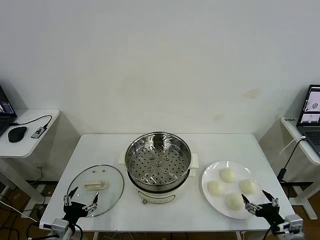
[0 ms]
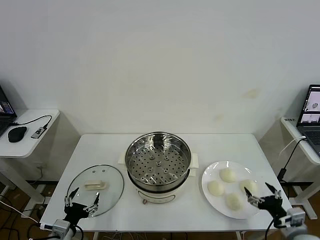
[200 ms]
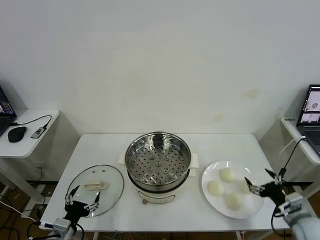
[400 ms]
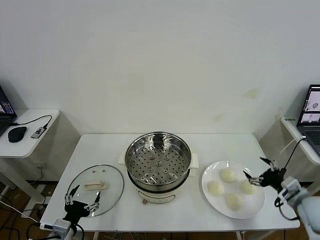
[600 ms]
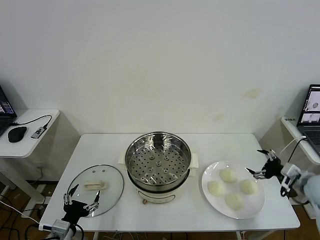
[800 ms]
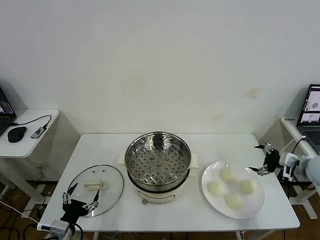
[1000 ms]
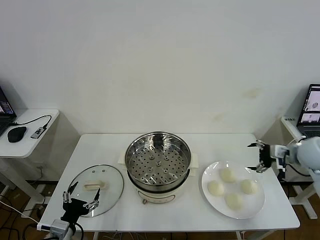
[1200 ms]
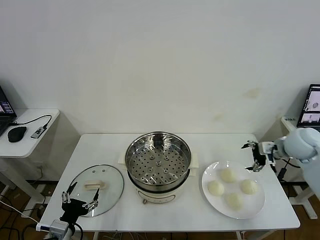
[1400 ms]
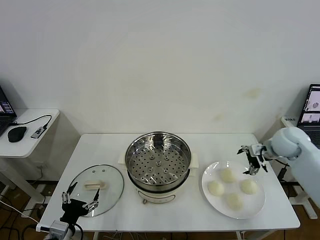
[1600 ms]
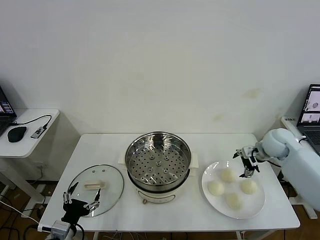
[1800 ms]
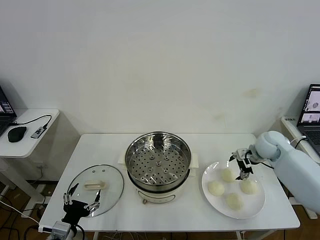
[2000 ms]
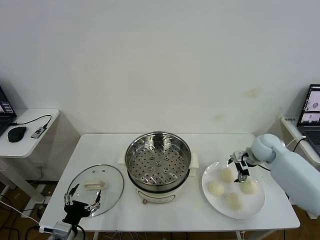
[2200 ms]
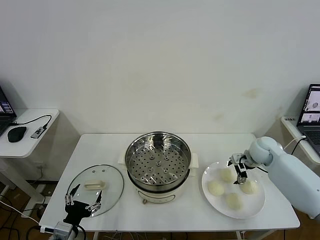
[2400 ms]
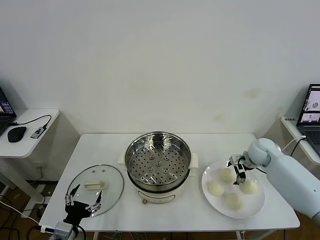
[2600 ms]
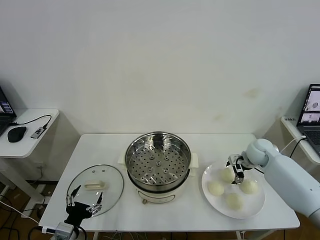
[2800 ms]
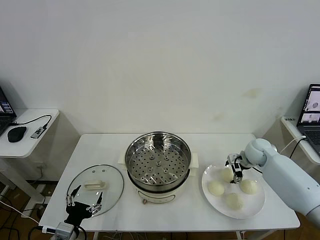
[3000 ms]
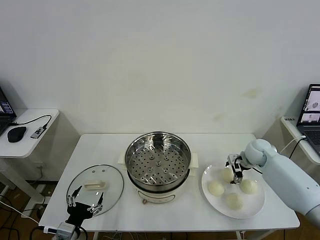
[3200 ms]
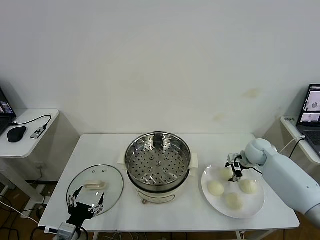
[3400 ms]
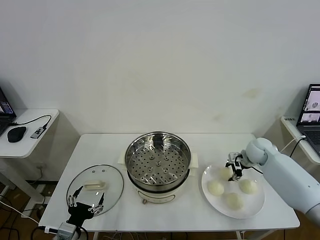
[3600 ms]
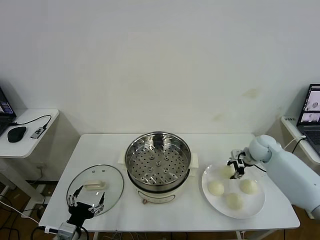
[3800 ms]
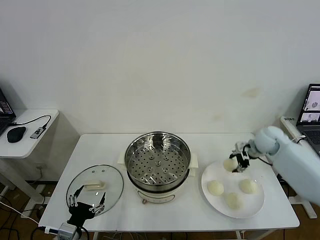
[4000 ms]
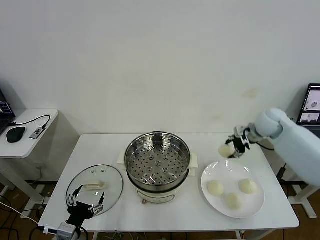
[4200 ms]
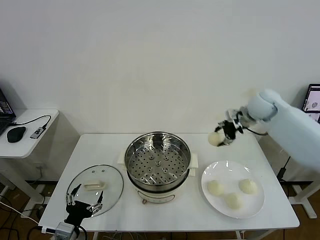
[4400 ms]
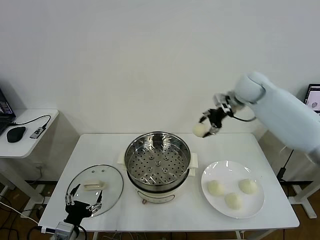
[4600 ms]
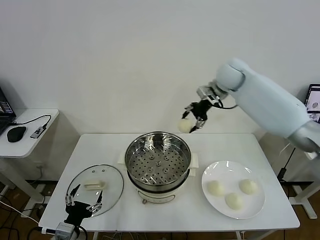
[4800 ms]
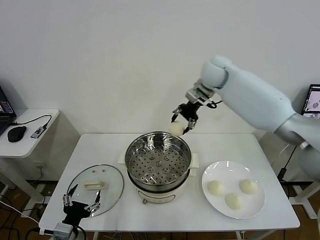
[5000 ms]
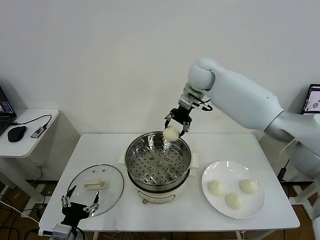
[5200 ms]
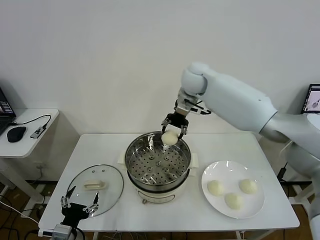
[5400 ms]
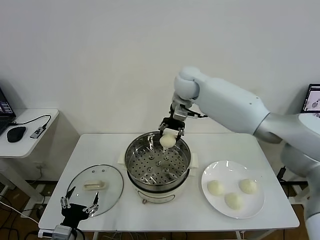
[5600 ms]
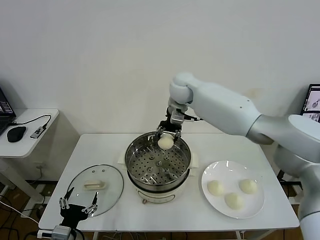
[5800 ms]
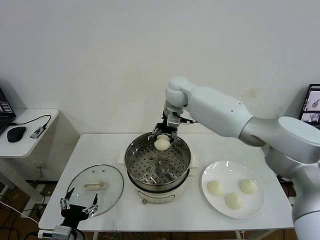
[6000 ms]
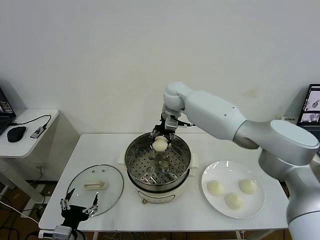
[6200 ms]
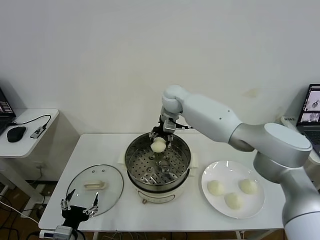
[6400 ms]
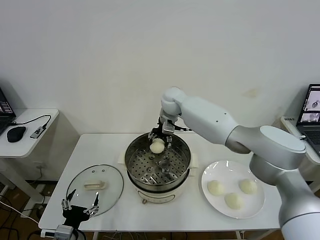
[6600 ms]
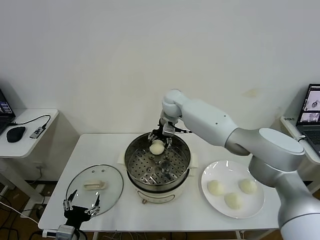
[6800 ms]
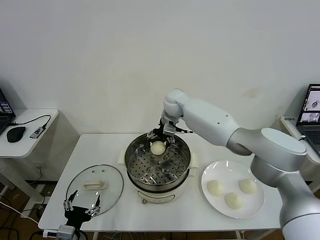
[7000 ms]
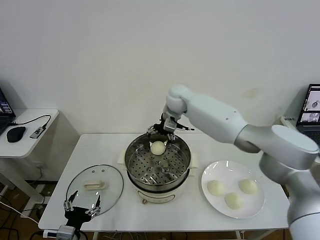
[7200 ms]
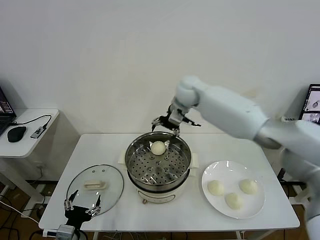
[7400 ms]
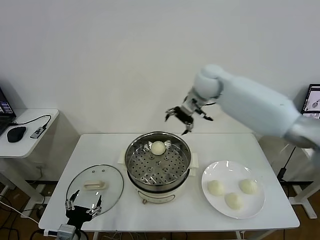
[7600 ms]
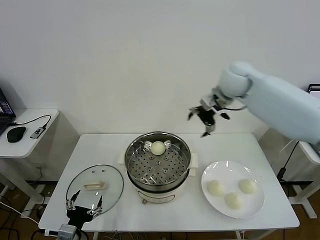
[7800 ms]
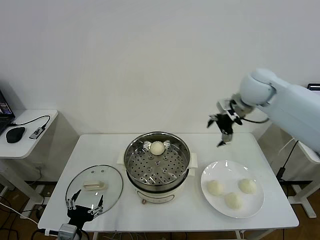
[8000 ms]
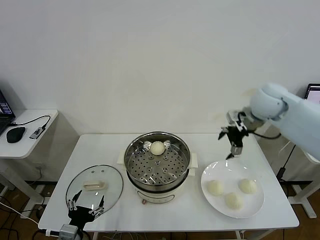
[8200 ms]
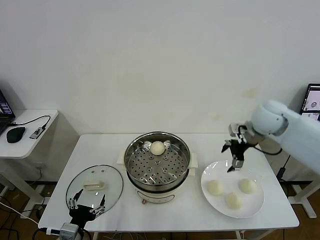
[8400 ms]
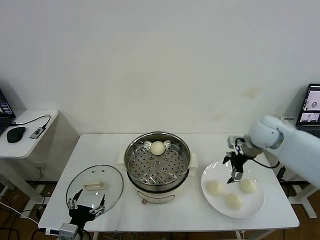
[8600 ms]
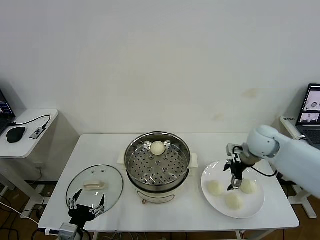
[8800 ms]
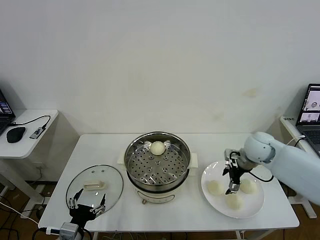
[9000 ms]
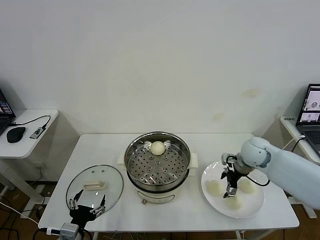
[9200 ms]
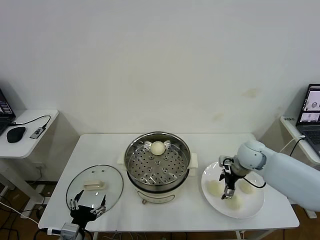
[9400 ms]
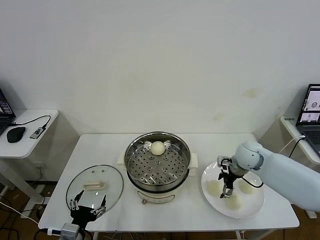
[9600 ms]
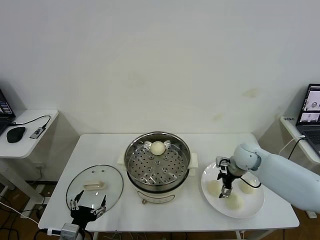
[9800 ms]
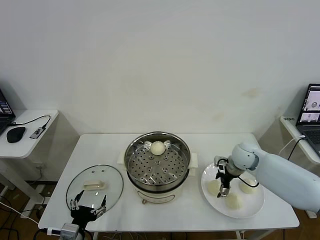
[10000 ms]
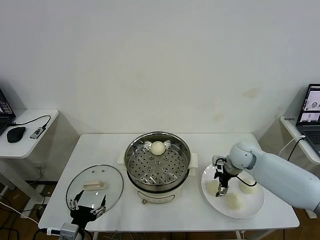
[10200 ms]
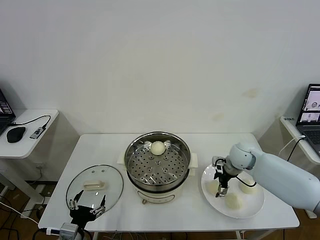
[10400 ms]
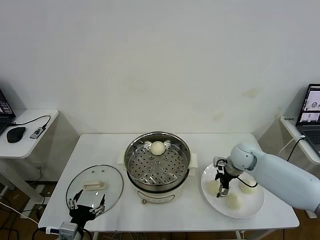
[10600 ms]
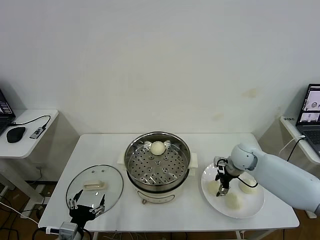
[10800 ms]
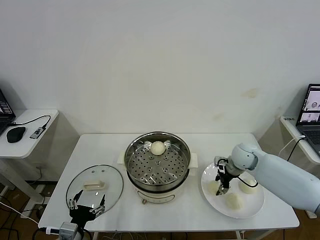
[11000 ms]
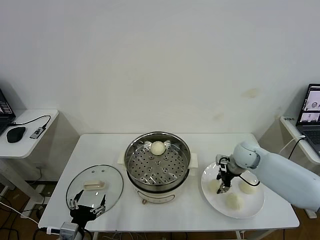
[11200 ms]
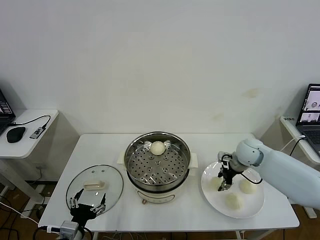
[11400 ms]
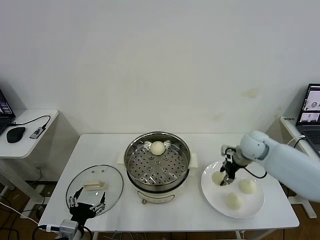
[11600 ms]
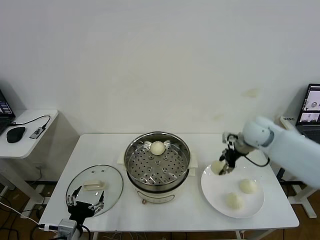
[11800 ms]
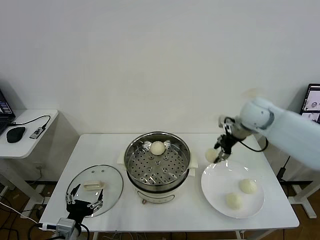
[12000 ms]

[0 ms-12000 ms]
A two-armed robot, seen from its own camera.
Task of the whole recording: take steamed baozi put them in steamer then cover it.
Step, 0 ms to 3600 ms: Grasp the baozi in the plate with right gripper.
Step, 3800 ms to 7000 ms: Place the baozi on the steamer with right gripper.
Step, 7200 ms to 11000 ms: Grasp the baozi in the plate with right gripper.
1600 ms to 3000 ms: The right gripper heads downward, covering about 10 cm.
3000 ms to 4400 ms: The right gripper moves upward, approximately 25 cm, and closes up.
4400 ms to 6000 ms: The right gripper is displaced to the left by approximately 25 cm.
6000 ms to 7600 ms: The right gripper heads to the right and upward, covering some 15 cm, and opens.
7600 ms to 9000 ms: The right gripper moves downward, to the right and backward, approximately 25 cm.
9000 ms to 10400 ms: The right gripper heads downward, covering approximately 5 cm.
10400 ms to 12000 ms: The right gripper moves upward, approximately 20 cm, and closes up.

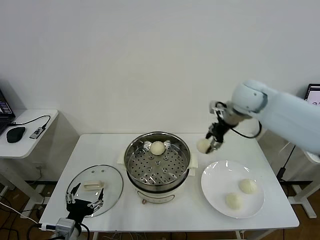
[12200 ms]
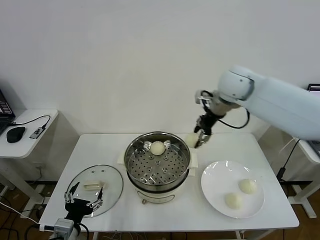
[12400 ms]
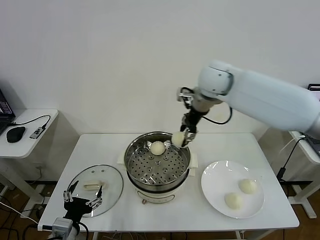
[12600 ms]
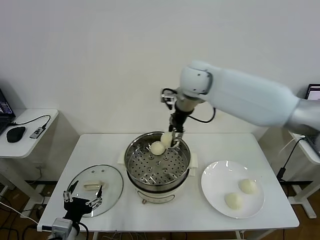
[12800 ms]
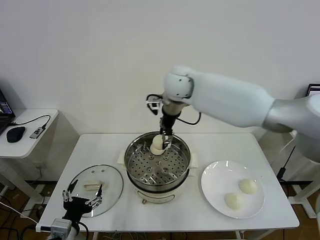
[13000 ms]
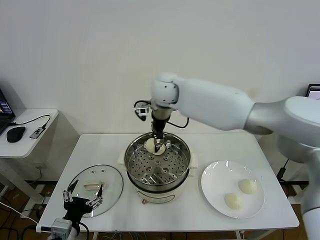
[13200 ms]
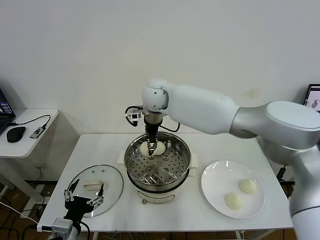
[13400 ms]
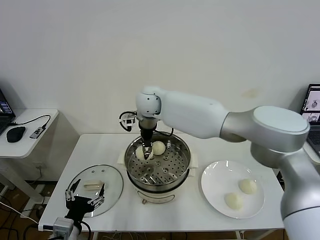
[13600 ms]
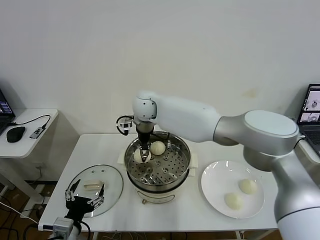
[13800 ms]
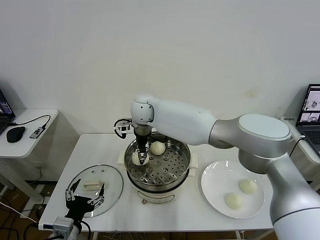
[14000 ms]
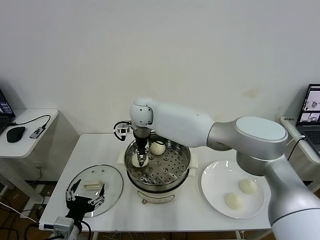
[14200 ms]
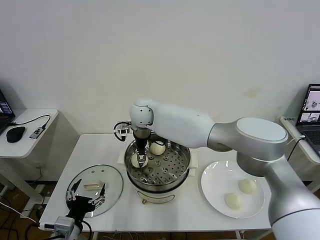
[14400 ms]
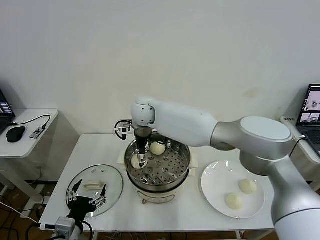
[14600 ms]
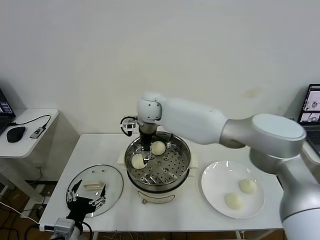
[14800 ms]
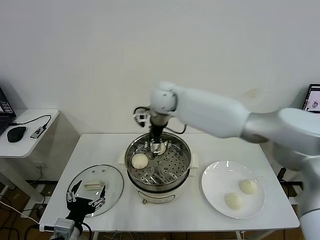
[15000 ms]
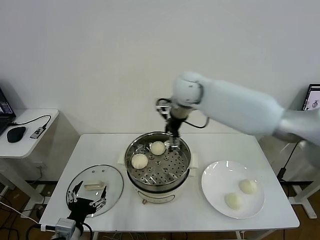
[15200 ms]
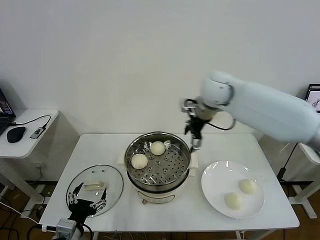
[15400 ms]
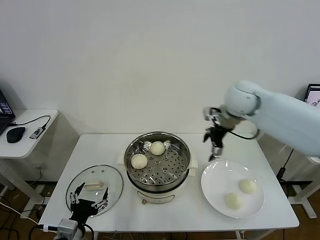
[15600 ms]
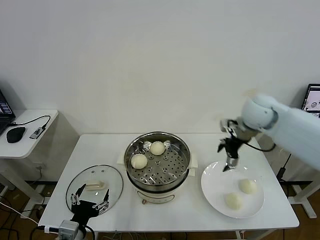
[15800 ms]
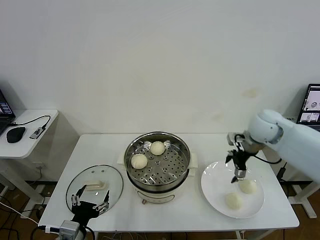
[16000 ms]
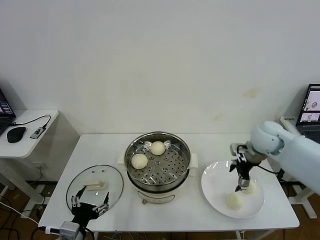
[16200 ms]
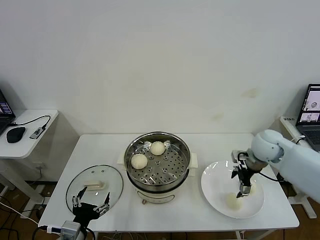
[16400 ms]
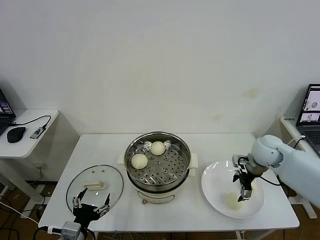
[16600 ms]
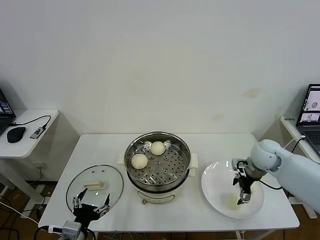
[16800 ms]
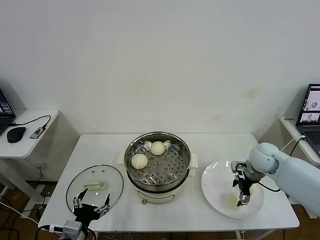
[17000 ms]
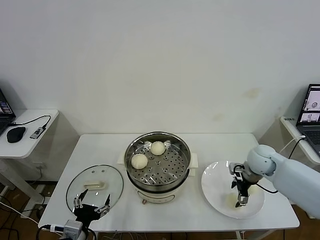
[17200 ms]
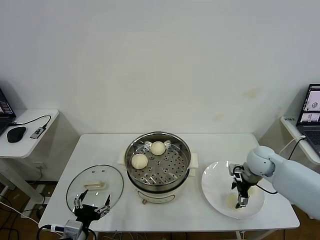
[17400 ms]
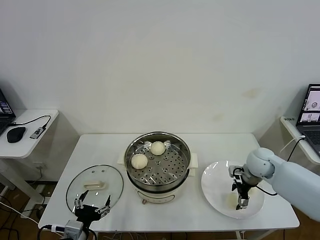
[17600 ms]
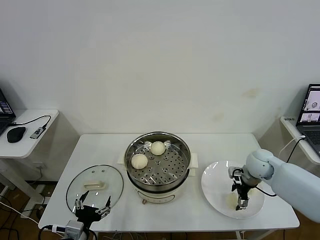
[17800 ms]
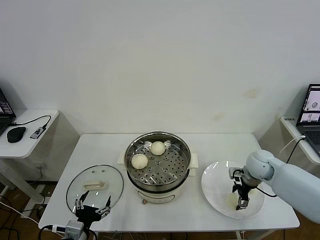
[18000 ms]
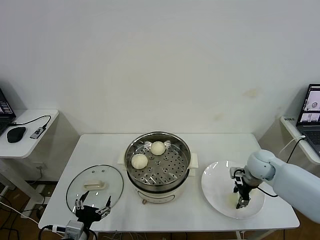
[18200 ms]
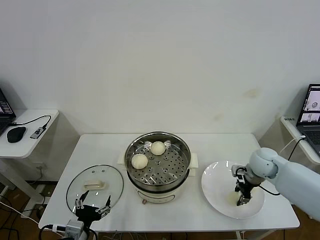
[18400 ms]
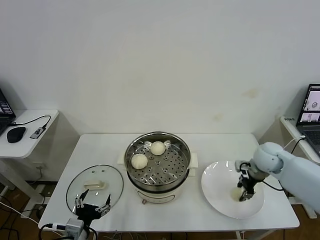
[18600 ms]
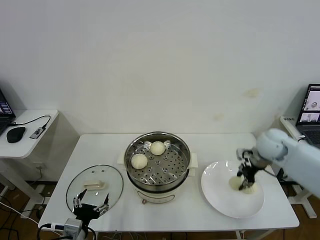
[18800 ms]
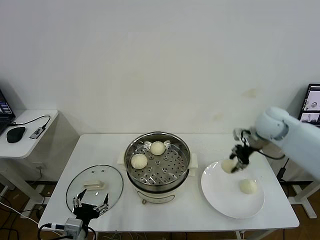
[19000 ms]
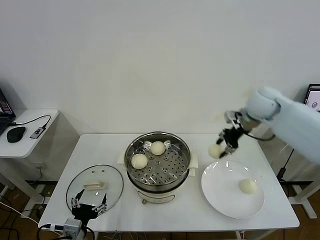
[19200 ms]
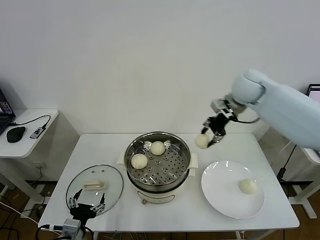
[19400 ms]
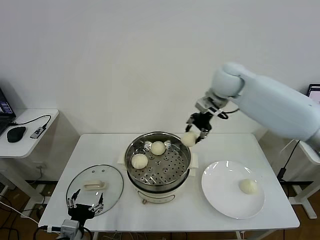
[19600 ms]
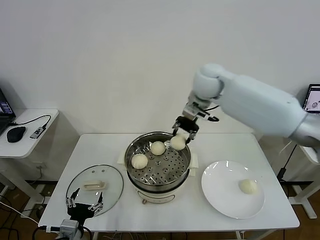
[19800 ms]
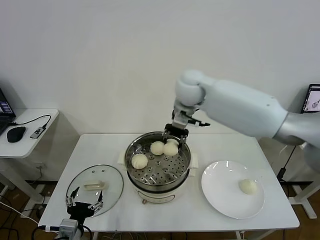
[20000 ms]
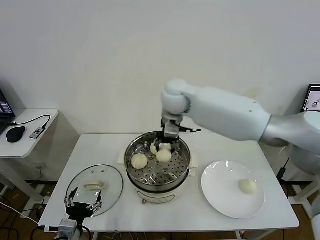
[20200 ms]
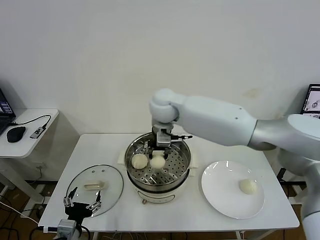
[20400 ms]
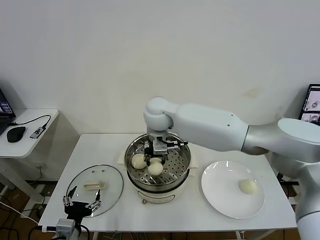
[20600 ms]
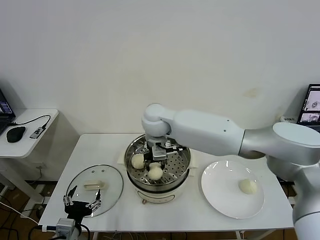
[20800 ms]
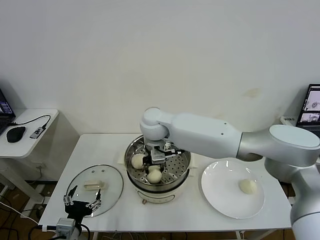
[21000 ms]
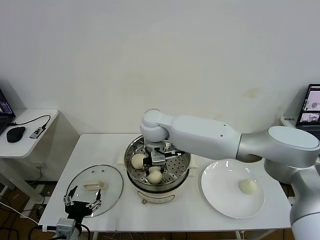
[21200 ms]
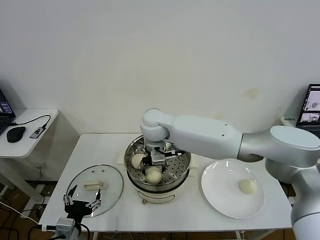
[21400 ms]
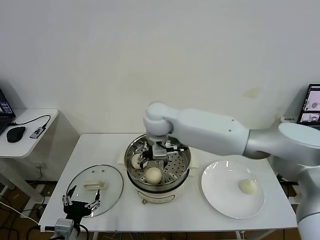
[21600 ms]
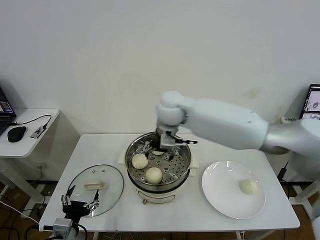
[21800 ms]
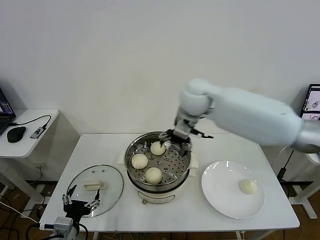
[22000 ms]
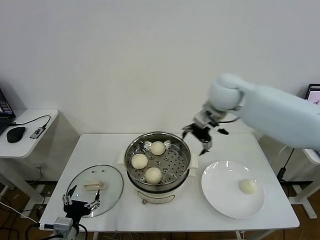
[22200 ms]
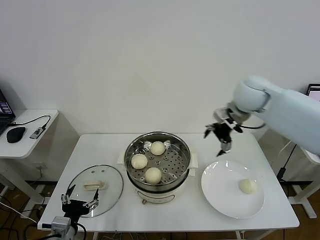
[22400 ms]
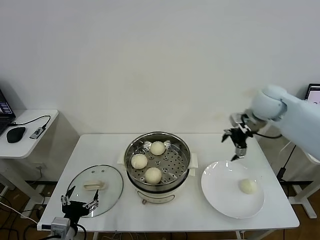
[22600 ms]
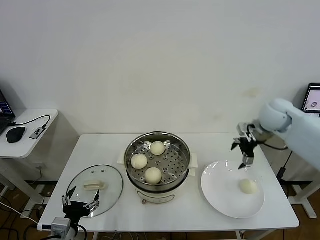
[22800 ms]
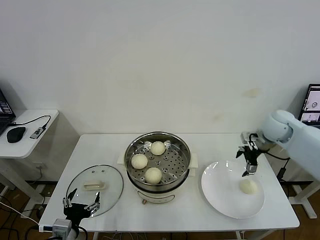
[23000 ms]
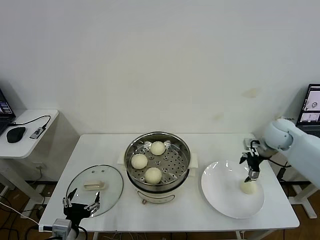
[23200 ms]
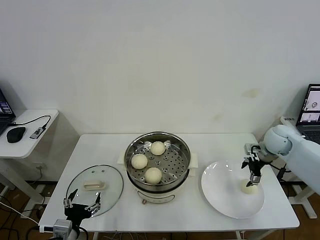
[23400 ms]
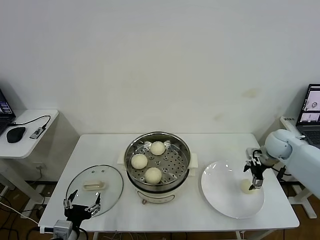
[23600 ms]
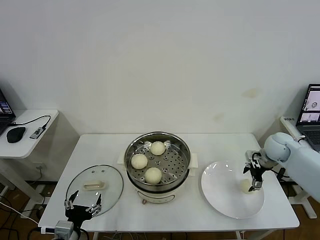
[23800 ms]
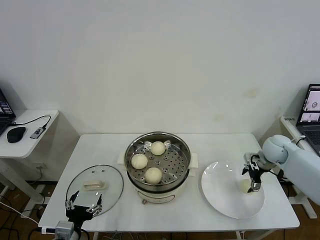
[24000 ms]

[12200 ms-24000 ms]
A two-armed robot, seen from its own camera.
Task of the whole recording: take steamed baozi put them in steamer then cover it.
Step, 12200 ms to 14600 ms: Place the baozi on the steamer with right gripper.
Step, 15000 ms to 18400 ms: Grasp the baozi in the plate with right gripper.
Step, 18600 ms to 21600 ms: Place the baozi on the steamer with right gripper.
12200 ms to 13600 ms: The right gripper moves to the left, approximately 30 cm.
13600 ms to 15200 ms: The right gripper goes approximately 15 cm to the right, and opens its fingers.
15200 ms to 16600 ms: The right gripper travels to the right, downward and backward by some 30 cm.
16600 ms to 18200 ms: The right gripper travels downward by some 5 cm, and closes.
18200 ms to 19600 ms: The right gripper heads upward, to the left and forward, covering approximately 35 cm.
19600 ms to 21000 ms: The right gripper goes about 25 cm to the left and downward.
21000 ms to 22600 ms: The right gripper travels to the right by about 35 cm, and opens its fingers.
22600 ms to 24000 ms: The right gripper shifts some 20 cm downward and to the right.
